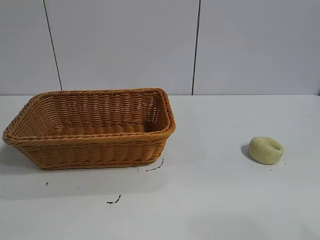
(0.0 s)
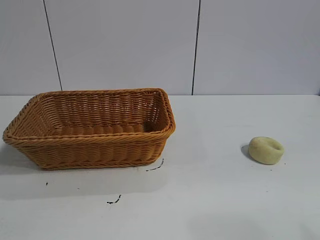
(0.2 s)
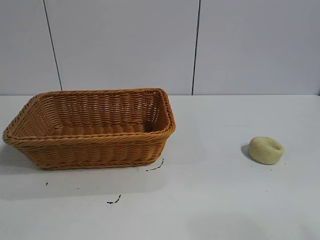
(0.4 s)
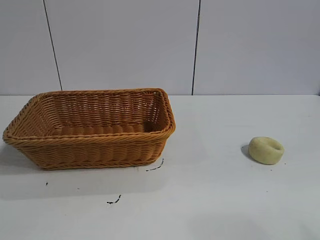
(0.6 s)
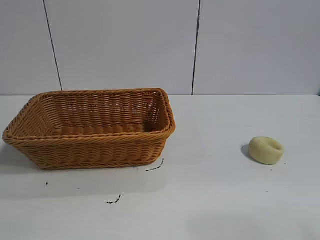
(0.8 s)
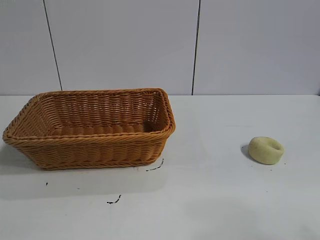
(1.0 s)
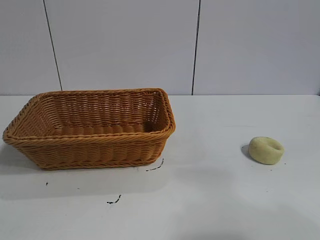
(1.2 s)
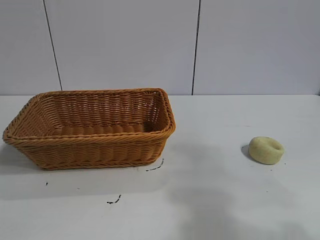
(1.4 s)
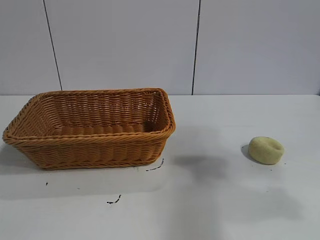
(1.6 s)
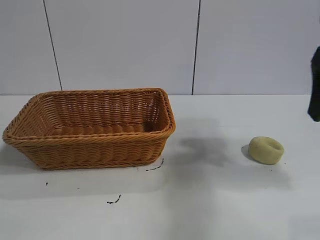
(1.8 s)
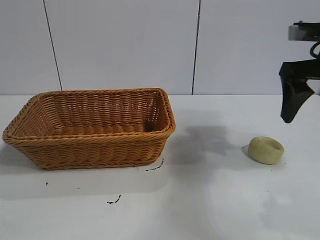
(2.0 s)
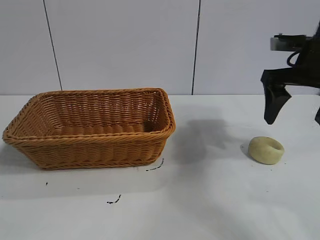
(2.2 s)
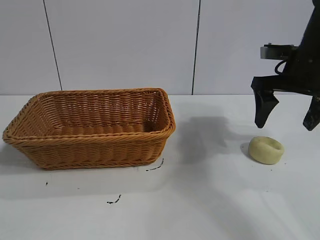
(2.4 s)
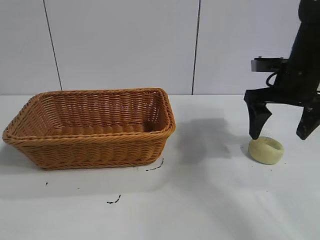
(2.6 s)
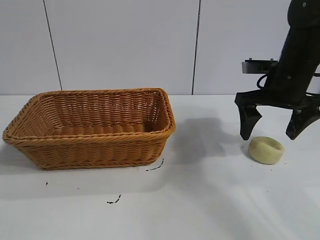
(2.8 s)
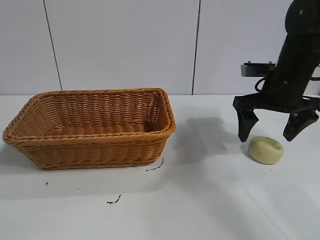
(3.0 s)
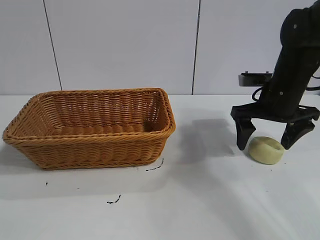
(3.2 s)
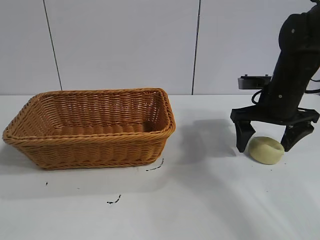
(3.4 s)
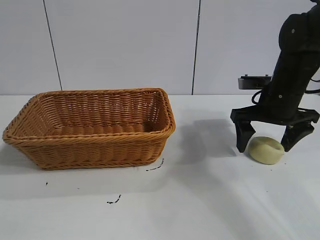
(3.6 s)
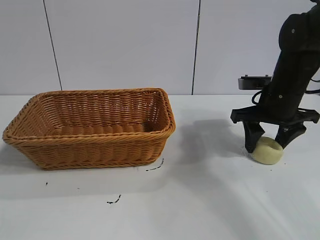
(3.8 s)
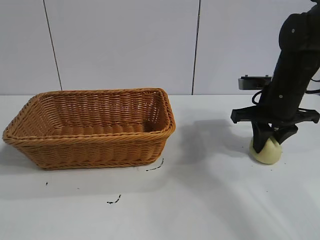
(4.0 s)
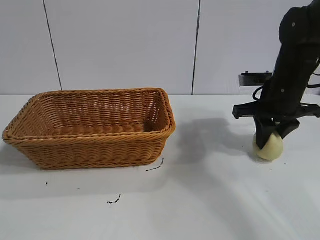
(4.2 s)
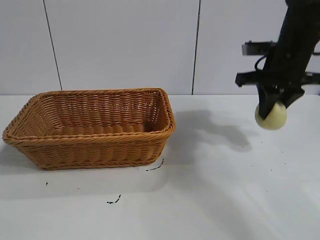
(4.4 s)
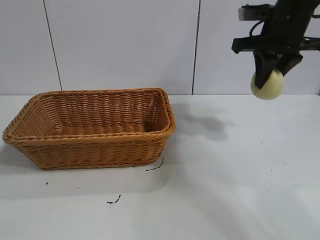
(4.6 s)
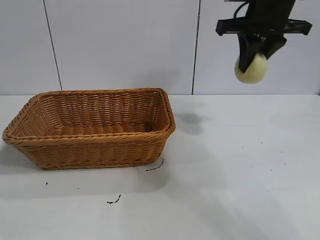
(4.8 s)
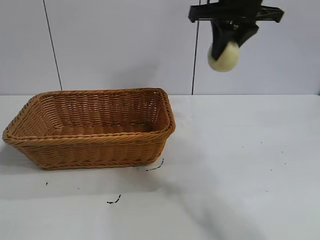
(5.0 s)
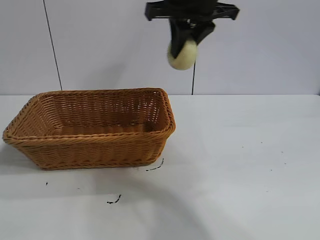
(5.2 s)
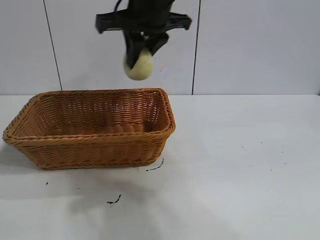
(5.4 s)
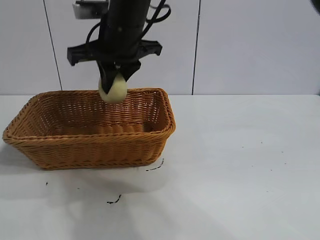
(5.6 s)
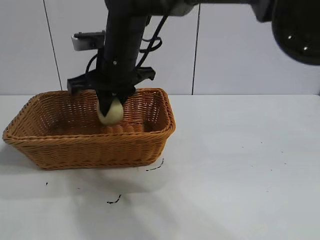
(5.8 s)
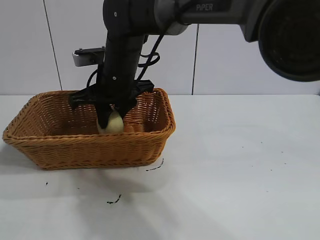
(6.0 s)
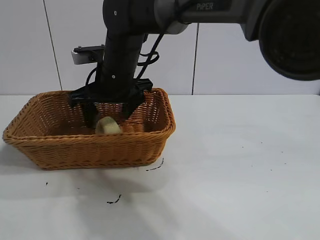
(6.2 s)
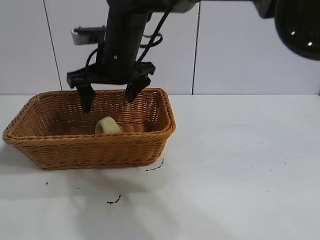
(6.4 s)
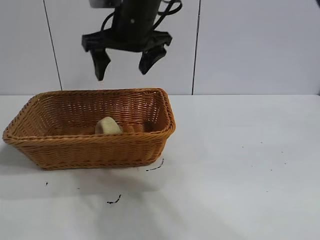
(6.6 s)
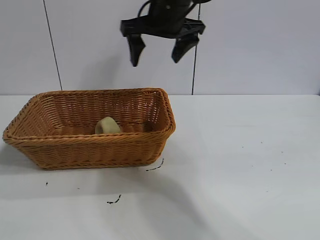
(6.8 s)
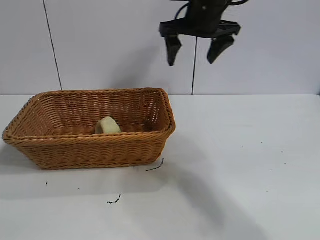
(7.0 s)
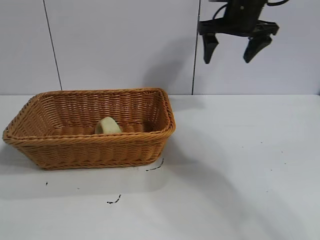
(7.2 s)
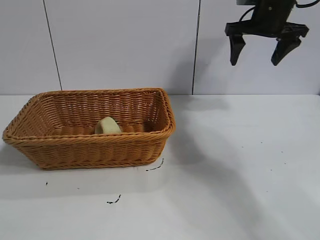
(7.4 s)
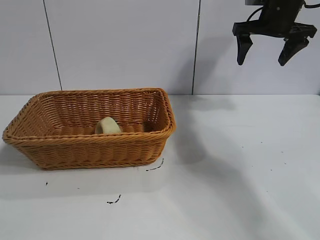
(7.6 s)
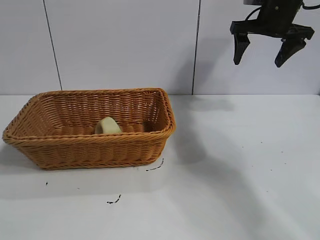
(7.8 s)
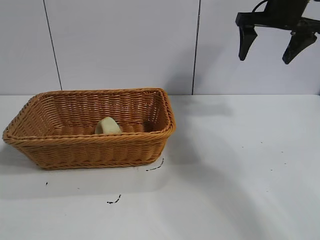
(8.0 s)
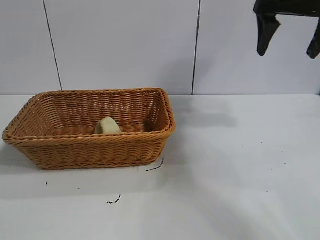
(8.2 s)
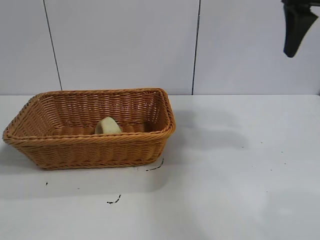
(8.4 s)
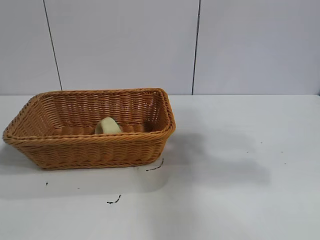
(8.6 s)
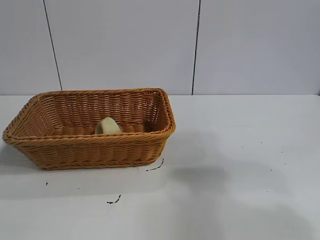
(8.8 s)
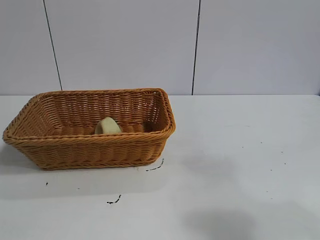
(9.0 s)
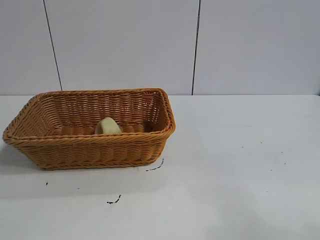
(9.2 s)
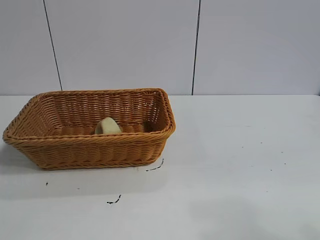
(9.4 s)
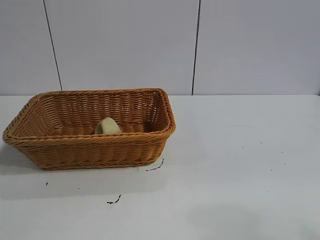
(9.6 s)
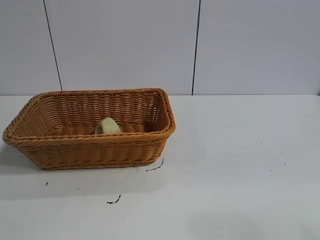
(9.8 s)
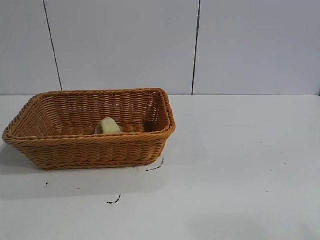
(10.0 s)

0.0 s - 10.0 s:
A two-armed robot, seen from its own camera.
Task of the whole recording: pick up the egg yolk pastry and put it into the basket.
Step, 1.0 s - 4.0 s: Grasp egg yolk pastry with right gripper.
Step, 4.2 s - 6.2 s: Place the egg yolk pastry in the basket with right gripper.

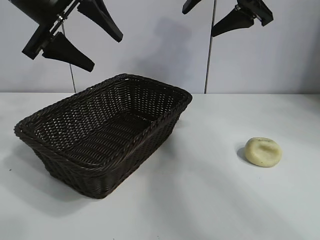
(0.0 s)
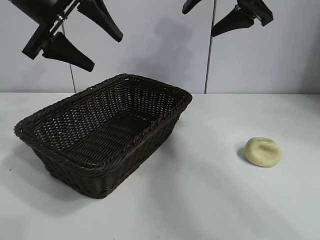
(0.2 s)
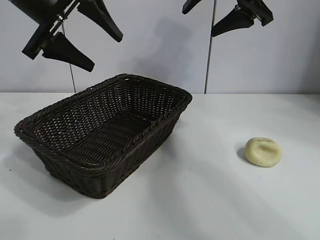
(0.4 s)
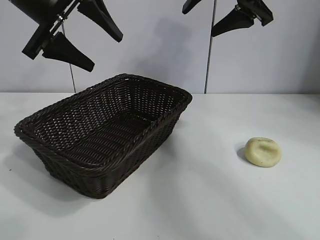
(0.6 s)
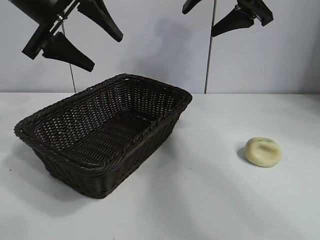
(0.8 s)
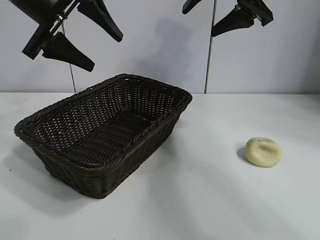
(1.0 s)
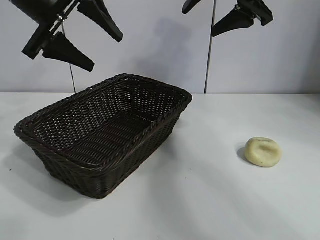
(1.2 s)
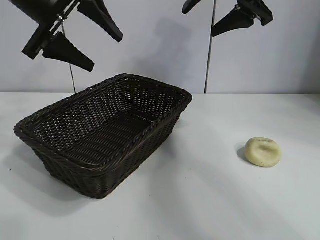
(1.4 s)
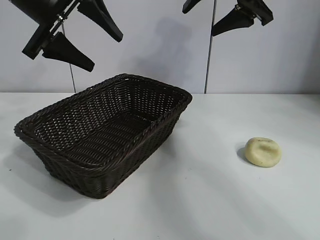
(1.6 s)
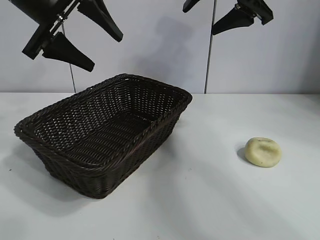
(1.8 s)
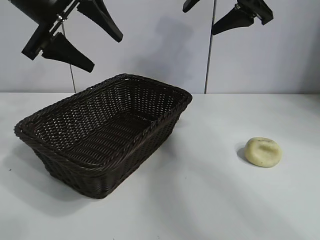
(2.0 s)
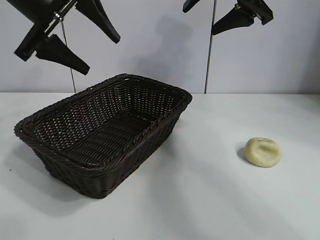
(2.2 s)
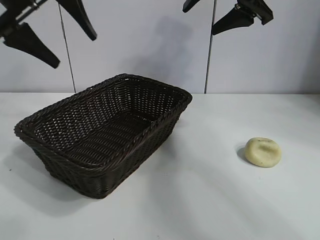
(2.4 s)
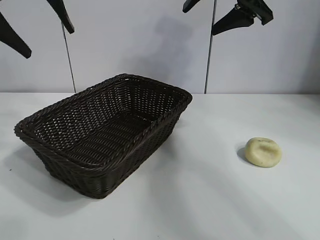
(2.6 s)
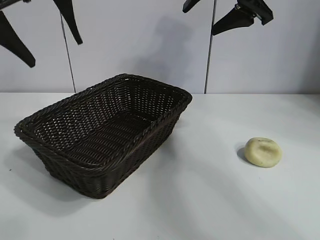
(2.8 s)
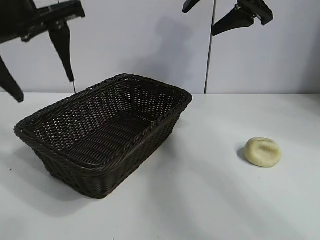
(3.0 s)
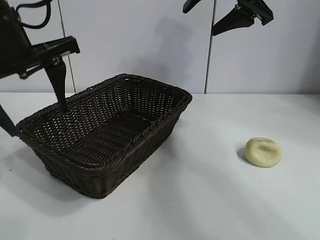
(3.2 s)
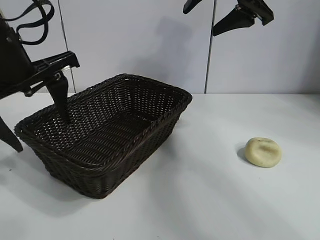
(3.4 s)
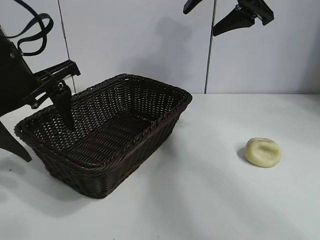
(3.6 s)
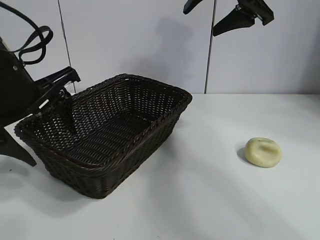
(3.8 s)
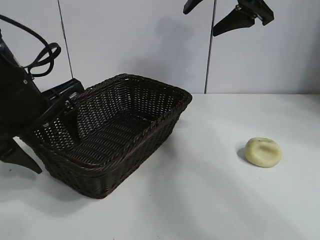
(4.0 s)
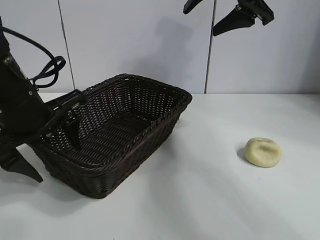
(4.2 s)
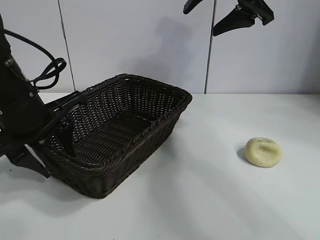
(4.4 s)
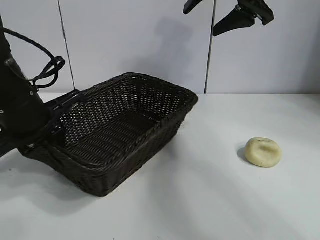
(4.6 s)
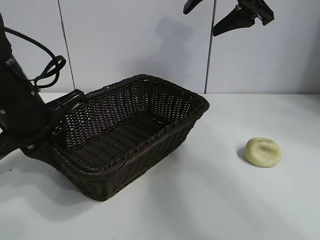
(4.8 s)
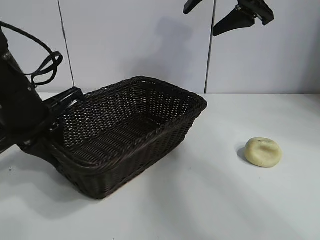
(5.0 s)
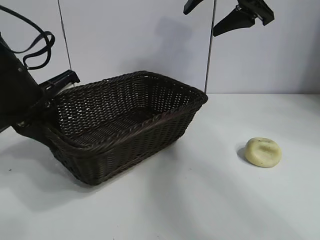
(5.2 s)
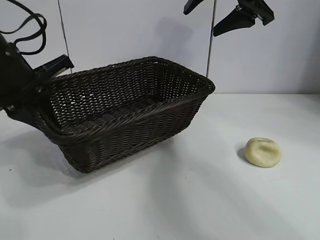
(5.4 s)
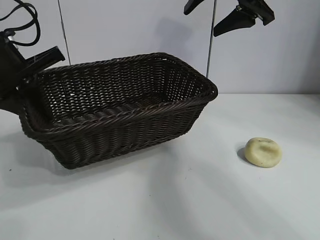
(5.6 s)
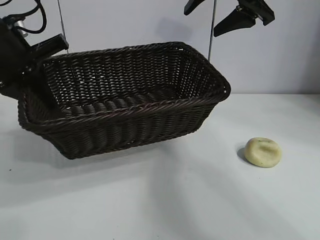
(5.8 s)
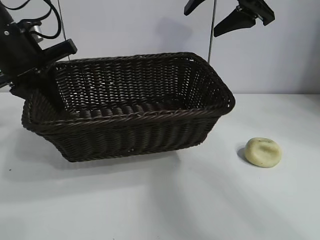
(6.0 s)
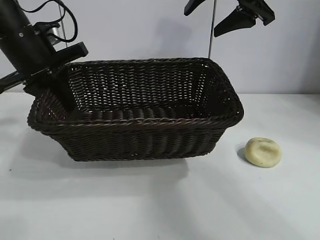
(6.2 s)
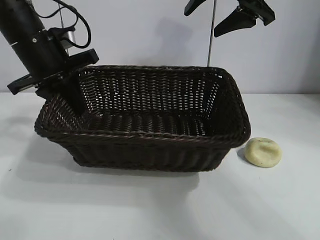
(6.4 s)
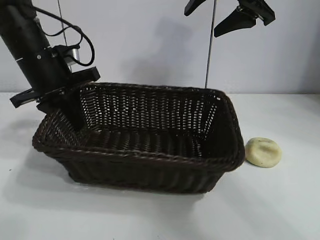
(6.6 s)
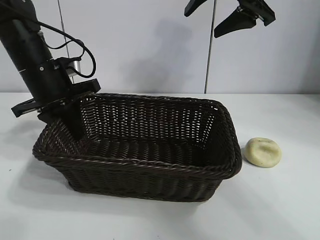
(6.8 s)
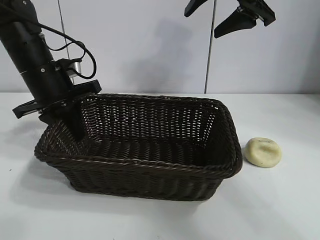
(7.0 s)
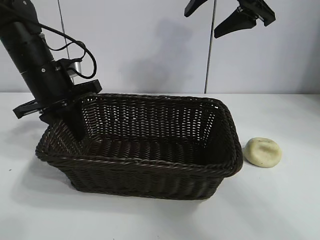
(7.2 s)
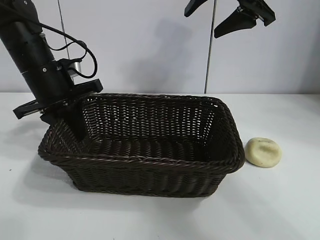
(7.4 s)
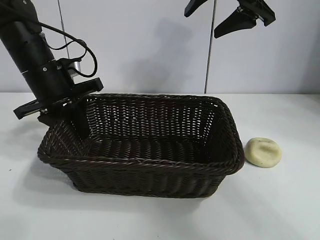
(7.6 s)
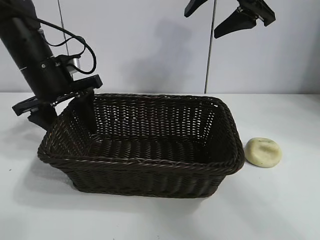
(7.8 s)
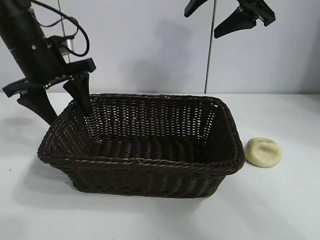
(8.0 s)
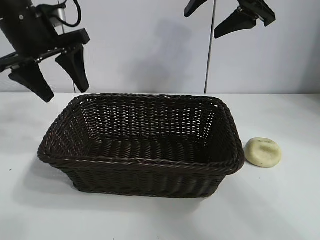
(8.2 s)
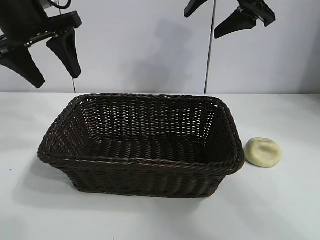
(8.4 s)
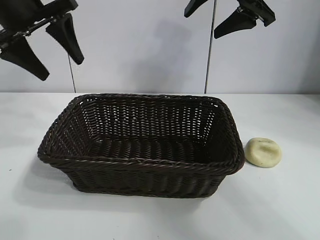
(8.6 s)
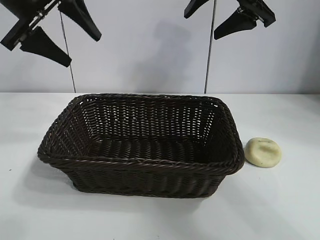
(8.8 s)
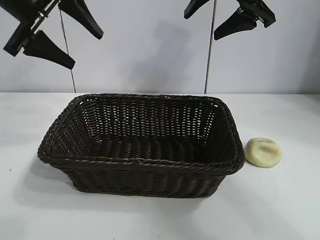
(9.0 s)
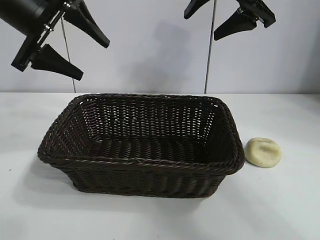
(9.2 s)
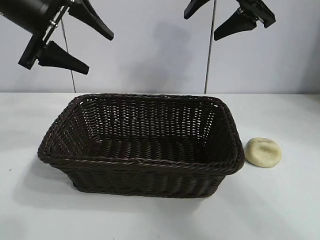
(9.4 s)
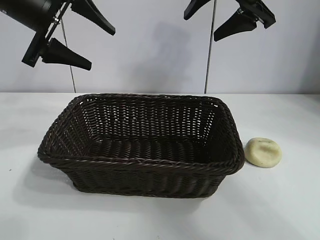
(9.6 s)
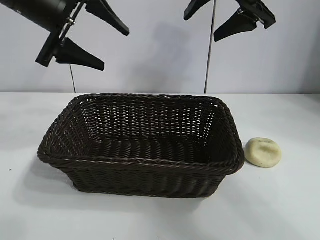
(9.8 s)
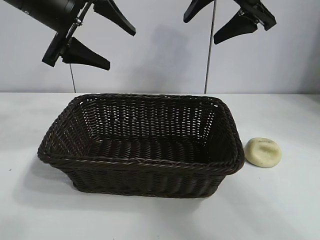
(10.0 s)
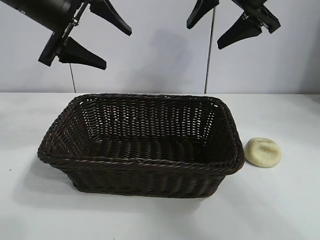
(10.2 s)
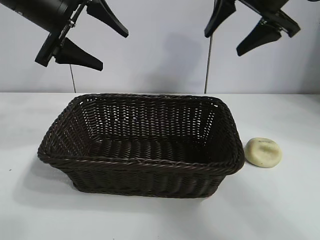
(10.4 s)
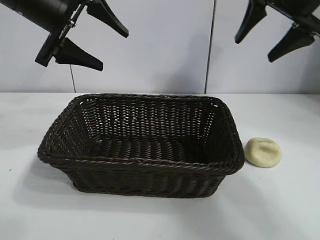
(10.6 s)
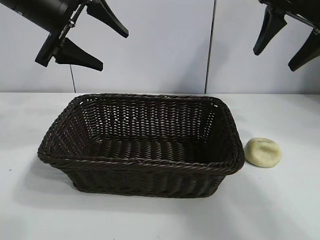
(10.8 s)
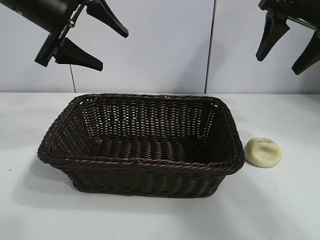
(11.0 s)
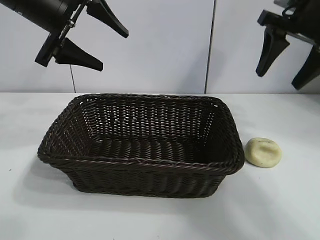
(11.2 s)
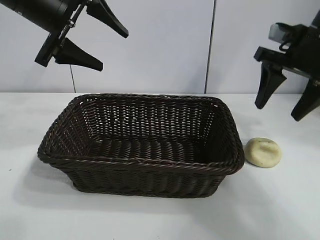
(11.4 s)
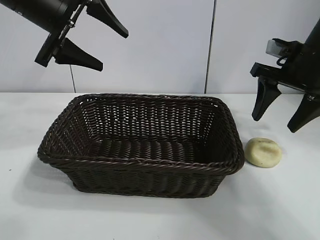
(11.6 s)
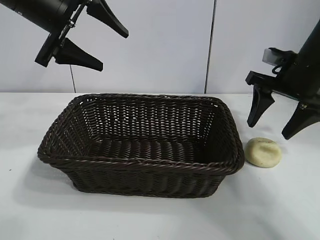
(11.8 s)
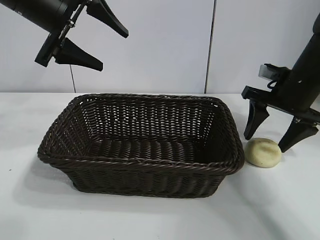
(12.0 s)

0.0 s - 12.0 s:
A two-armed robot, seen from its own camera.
Task of the whole recording: pick up the egg yolk pastry and put it into the basket.
Step, 1.6 s - 4.4 s: Grasp the basket with left gripper.
Step, 4.8 s - 7.8 s: Place the basket in the center of view with left gripper.

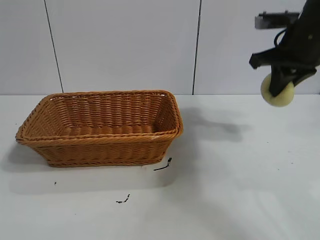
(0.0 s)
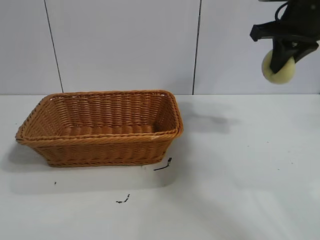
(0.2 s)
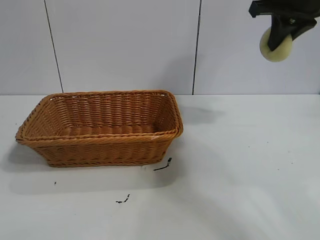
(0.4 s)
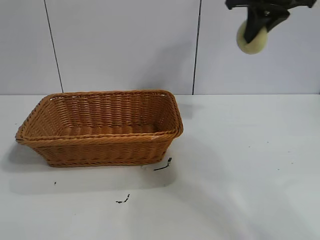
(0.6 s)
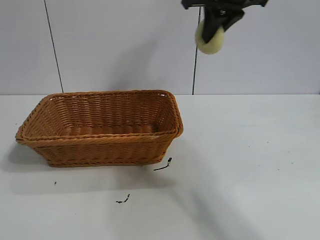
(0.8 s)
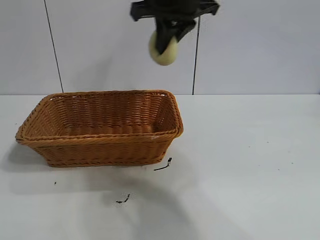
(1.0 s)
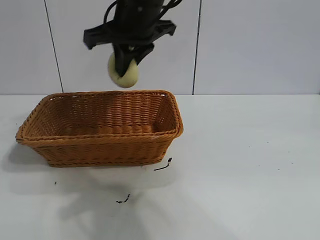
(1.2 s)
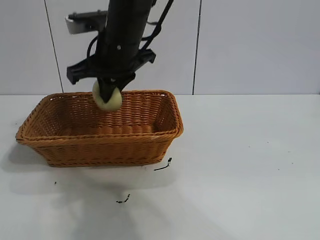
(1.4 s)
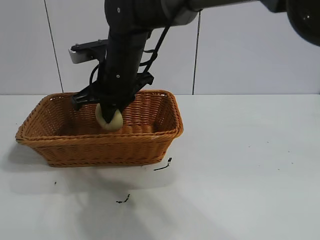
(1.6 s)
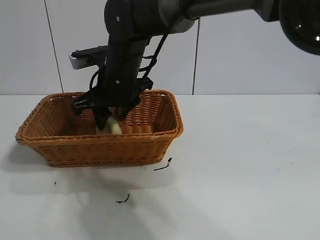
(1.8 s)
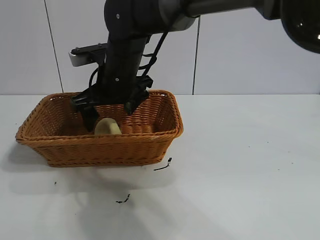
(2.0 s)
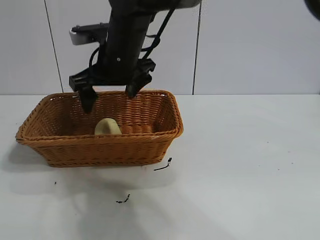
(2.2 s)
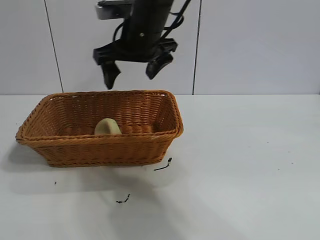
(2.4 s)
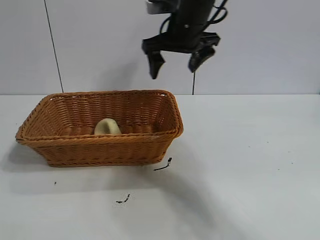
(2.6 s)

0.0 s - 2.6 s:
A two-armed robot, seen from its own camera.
Task of the whole recording: pick up the egg yolk pastry and put it into the basket.
Step, 0.0 s - 1.8 s: Place the egg yolk pastry in the basket with right gripper.
